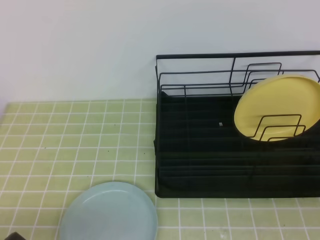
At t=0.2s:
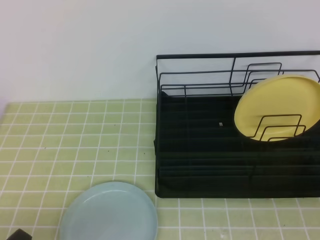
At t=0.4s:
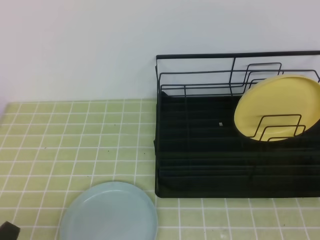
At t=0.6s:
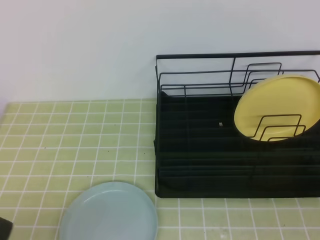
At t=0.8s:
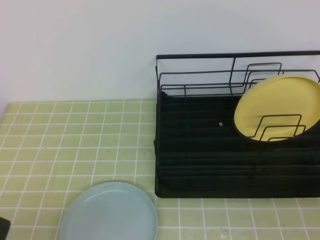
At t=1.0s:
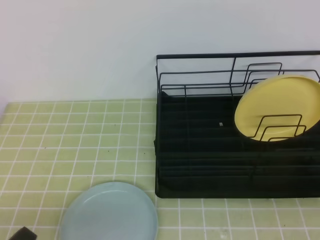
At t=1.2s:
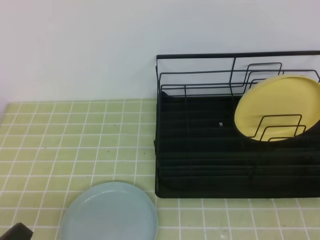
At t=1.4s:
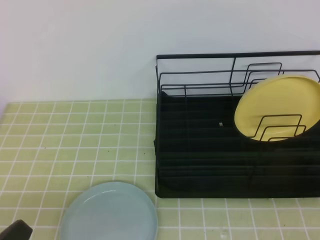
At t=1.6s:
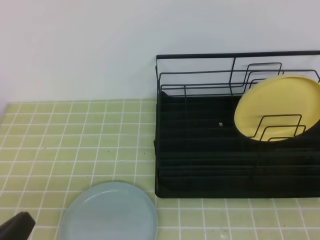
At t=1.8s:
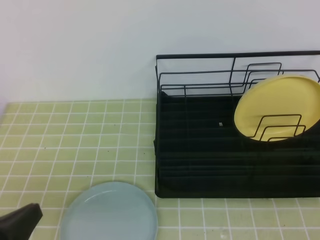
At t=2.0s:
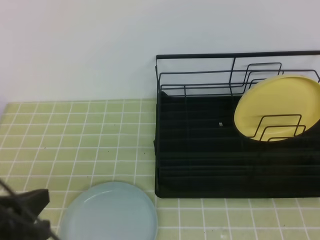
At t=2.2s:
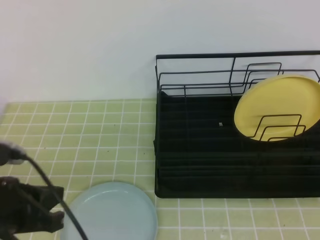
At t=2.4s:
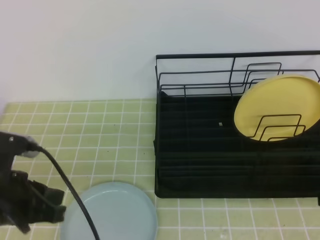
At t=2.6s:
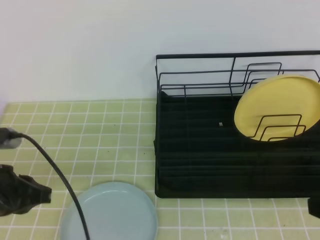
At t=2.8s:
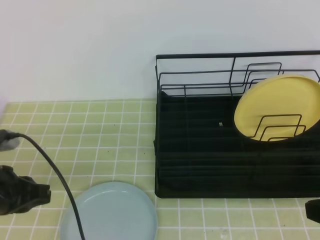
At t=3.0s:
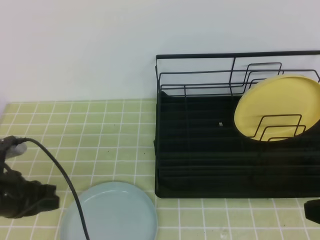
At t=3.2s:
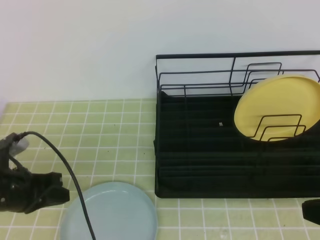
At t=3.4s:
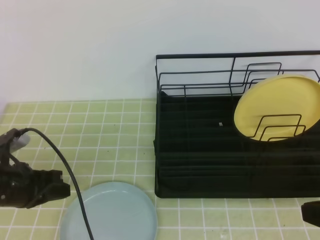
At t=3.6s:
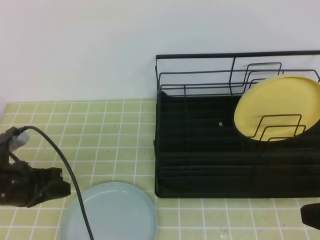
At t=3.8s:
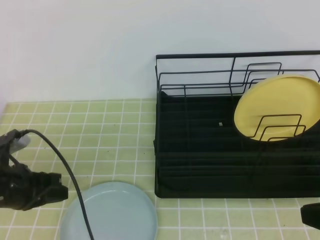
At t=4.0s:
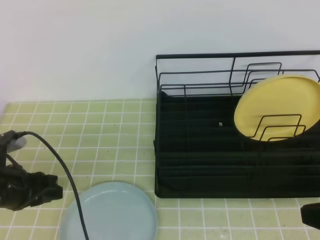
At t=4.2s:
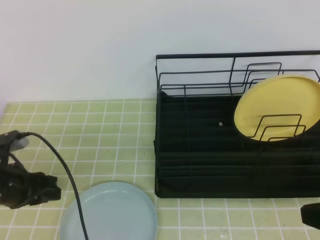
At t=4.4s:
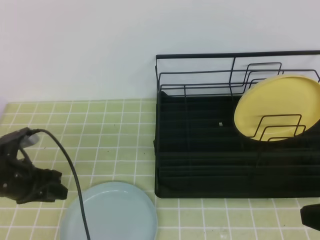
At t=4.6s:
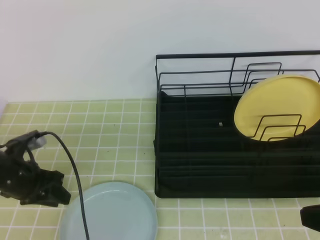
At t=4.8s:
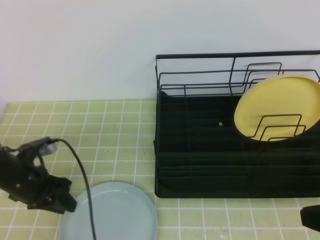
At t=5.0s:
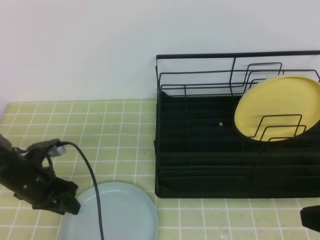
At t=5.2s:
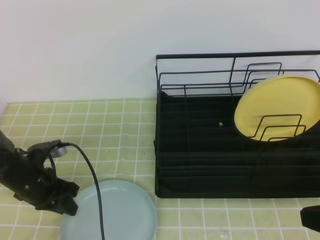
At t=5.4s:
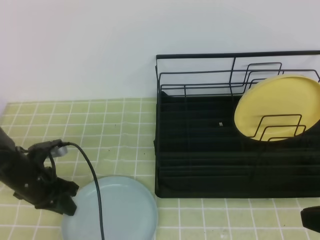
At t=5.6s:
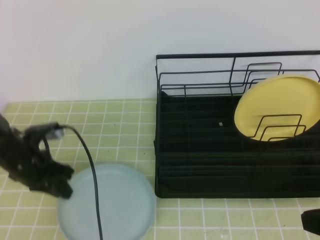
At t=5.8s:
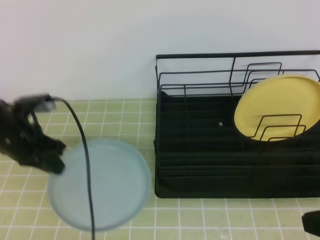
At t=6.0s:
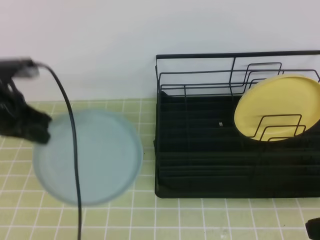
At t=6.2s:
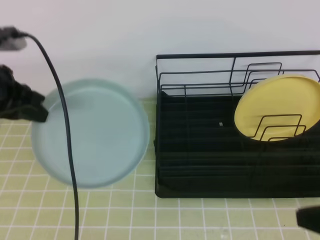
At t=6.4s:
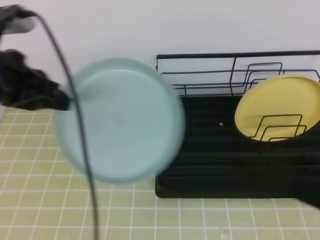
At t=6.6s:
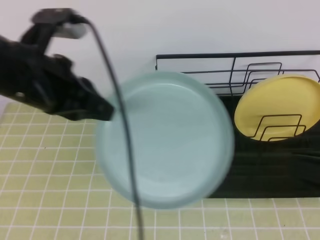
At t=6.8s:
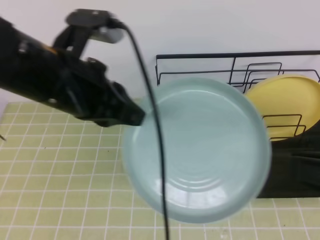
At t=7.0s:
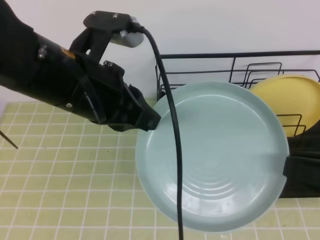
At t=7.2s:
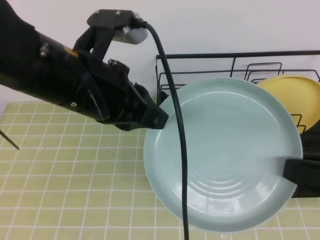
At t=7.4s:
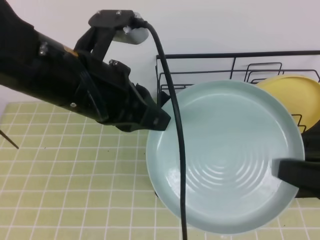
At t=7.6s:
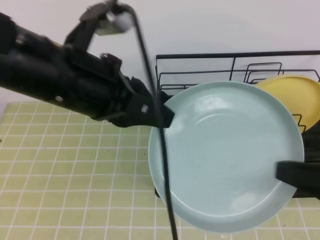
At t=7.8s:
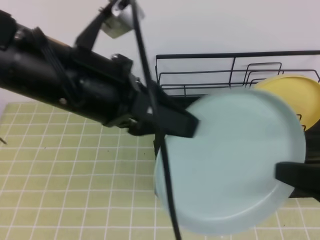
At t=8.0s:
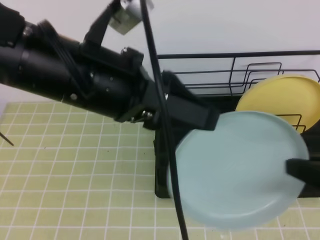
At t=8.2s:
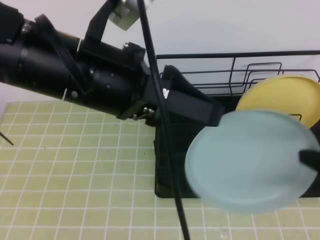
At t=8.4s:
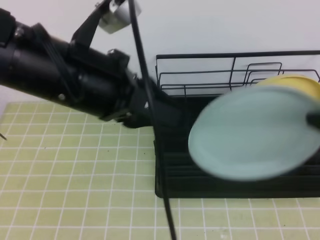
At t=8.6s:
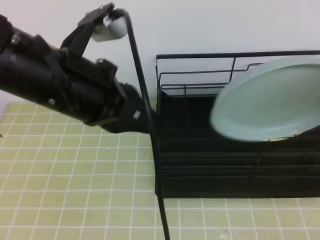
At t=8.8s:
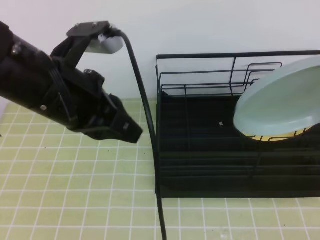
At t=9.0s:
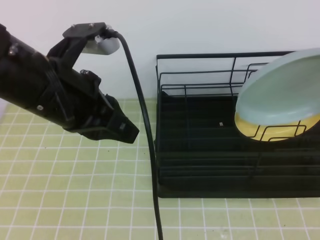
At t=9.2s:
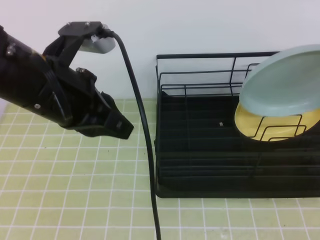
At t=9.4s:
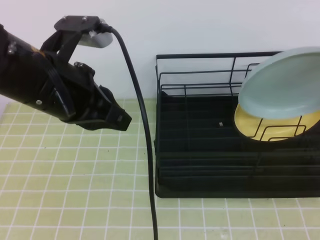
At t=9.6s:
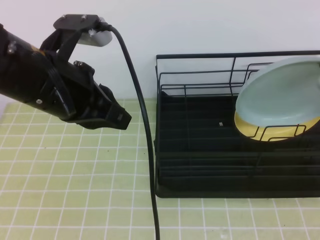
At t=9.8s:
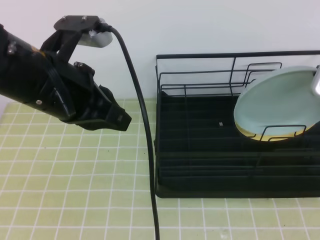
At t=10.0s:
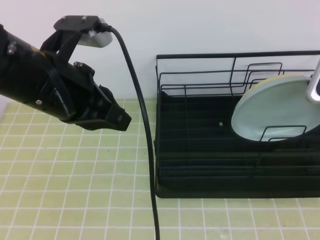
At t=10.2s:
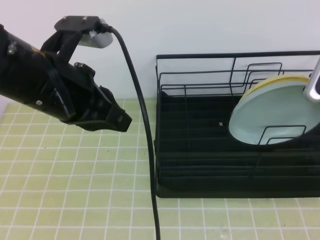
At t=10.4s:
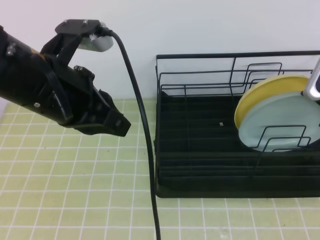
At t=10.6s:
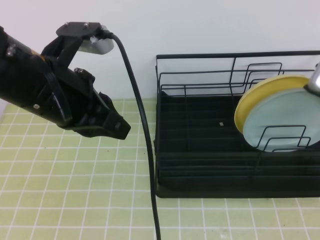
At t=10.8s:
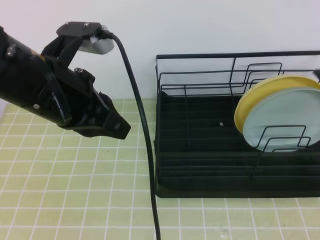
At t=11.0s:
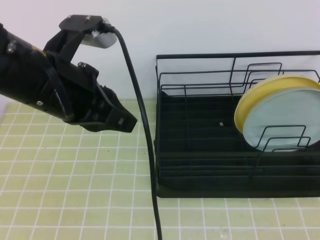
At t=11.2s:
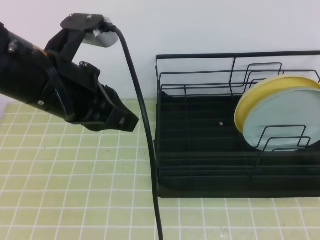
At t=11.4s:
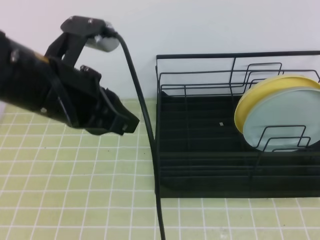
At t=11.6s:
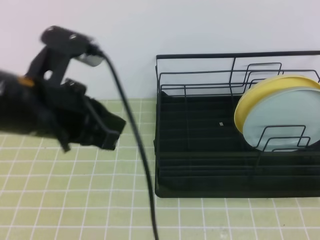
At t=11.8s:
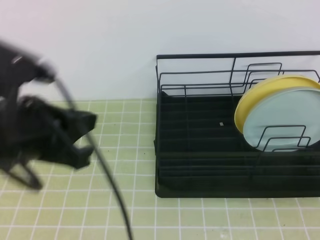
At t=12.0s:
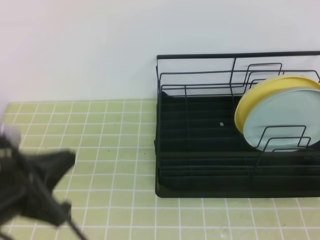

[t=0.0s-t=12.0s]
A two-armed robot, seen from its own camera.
t=0.0s to t=1.6s: The left gripper heads upward, covering roughly 5 cm.
t=1.6s to t=3.0s: The left gripper shifts approximately 15 cm forward.
t=3.0s to t=4.4s: The left gripper changes place by about 5 cm, and opens.
t=4.4s to t=6.0s: The left gripper heads upward and forward, covering approximately 10 cm, and closes up.
t=6.0s to t=7.6s: The left gripper heads to the right, upward and backward, covering about 25 cm. The right gripper opens, then closes once more.
t=7.6s to t=9.0s: The left gripper opens, then closes once more. The right gripper shifts about 10 cm forward and upward.
t=9.0s to t=10.4s: The right gripper goes roughly 10 cm forward and downward, and opens its fingers.
t=10.4s to t=12.0s: The right gripper heads backward, covering roughly 25 cm, and closes its fingers. Meanwhile the left gripper is displaced backward by roughly 5 cm.

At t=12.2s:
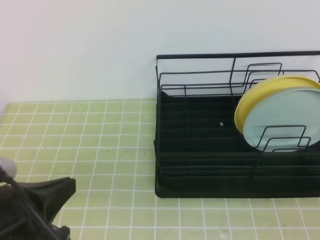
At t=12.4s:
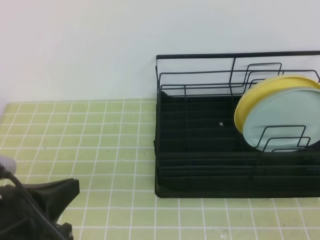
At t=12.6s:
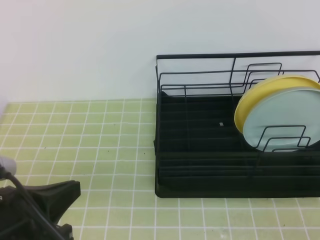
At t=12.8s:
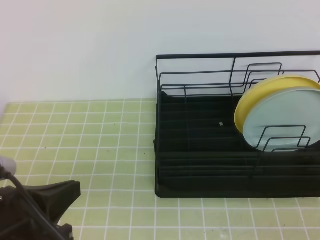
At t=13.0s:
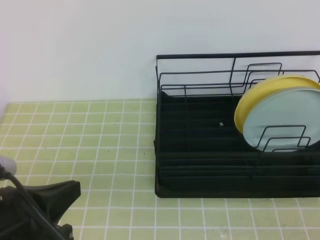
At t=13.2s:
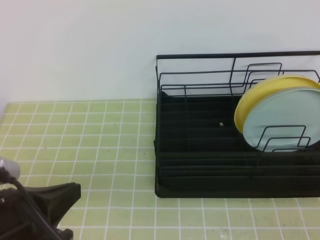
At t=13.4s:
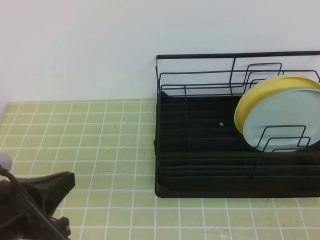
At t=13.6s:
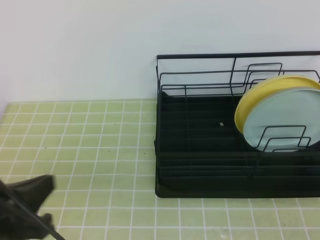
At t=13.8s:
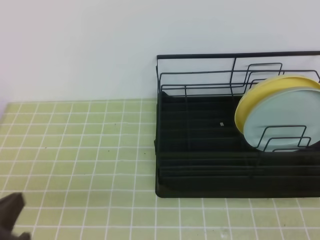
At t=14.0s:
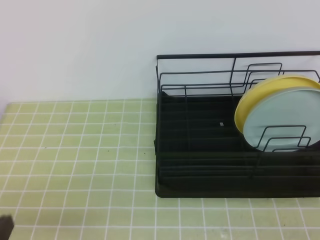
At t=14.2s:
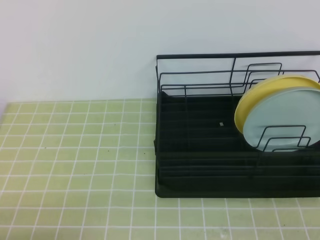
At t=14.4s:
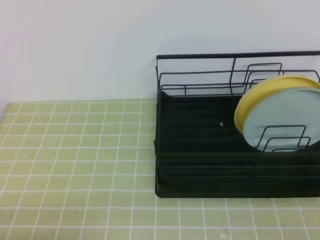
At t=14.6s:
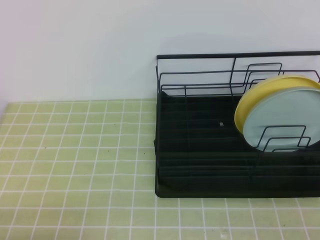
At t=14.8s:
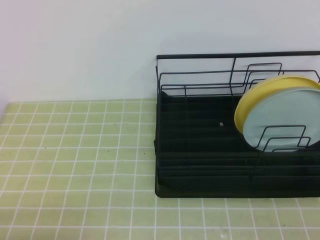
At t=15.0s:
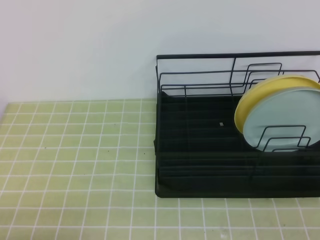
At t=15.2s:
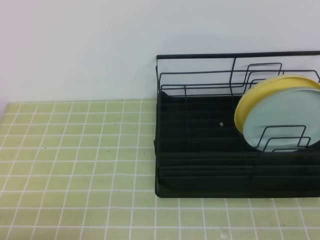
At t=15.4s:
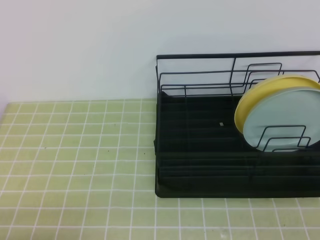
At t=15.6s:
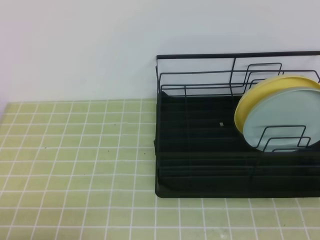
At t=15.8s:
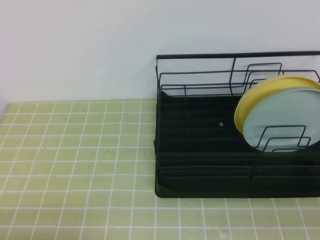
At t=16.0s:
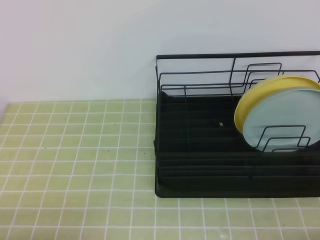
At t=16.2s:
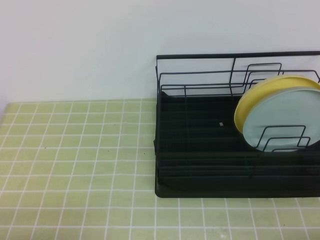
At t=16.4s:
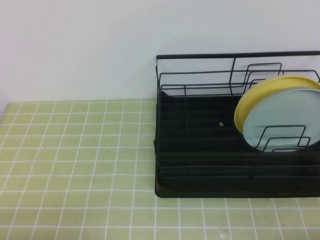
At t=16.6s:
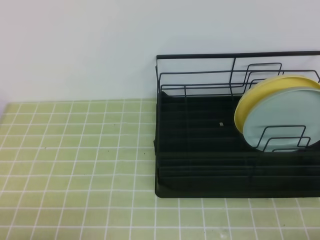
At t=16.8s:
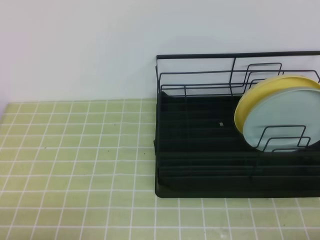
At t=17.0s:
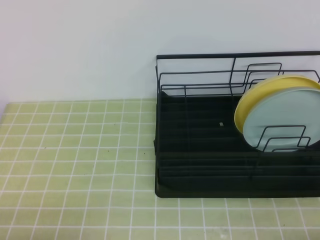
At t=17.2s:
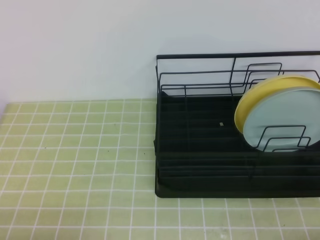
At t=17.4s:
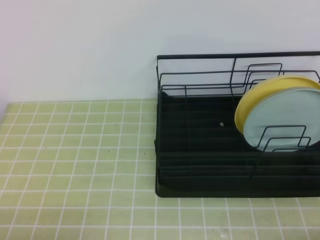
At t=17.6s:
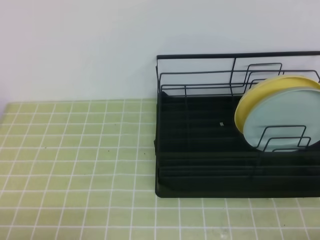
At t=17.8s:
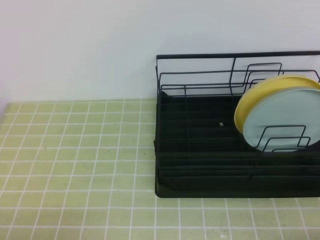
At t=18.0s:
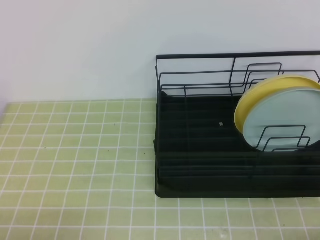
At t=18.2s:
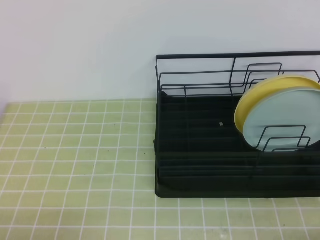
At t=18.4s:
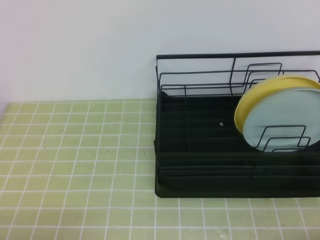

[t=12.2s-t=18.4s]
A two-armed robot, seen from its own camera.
t=12.2s to t=13.8s: The left gripper ends up roughly 5 cm from where it was.
t=13.8s to t=15.4s: The left gripper heads downward and backward, covering roughly 10 cm.
